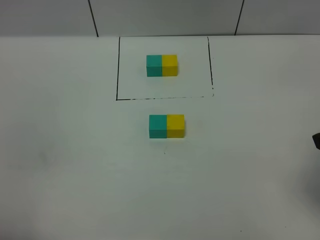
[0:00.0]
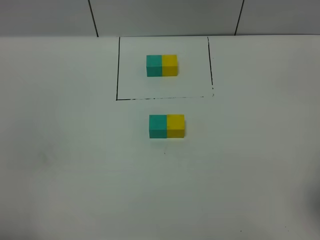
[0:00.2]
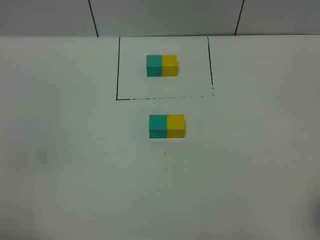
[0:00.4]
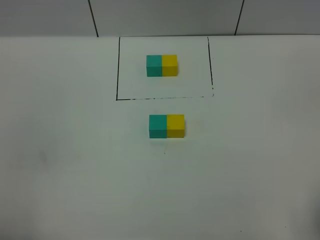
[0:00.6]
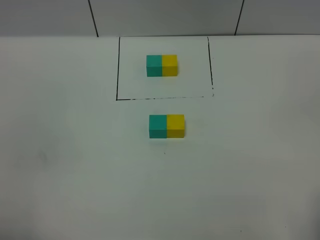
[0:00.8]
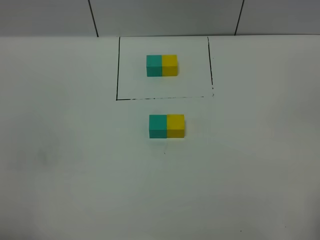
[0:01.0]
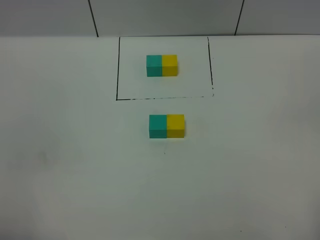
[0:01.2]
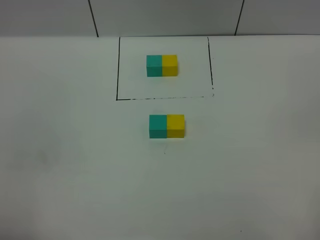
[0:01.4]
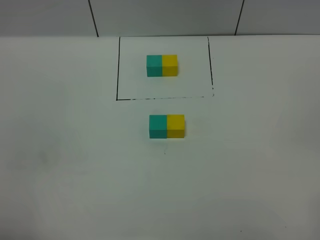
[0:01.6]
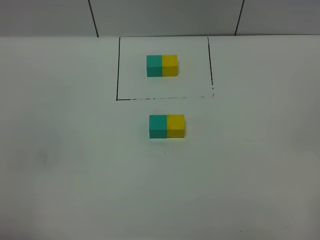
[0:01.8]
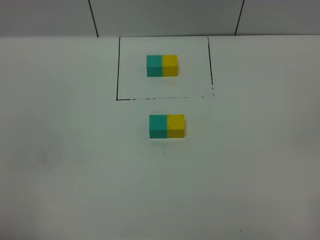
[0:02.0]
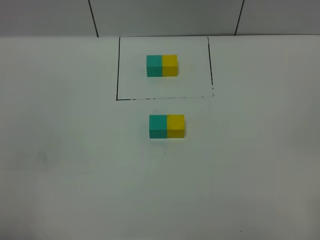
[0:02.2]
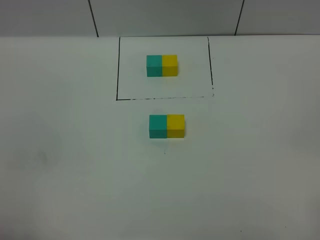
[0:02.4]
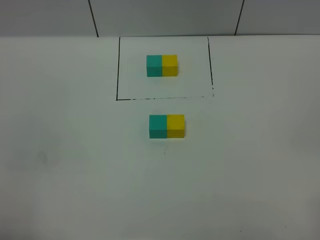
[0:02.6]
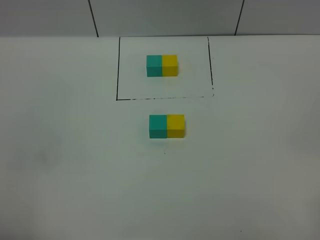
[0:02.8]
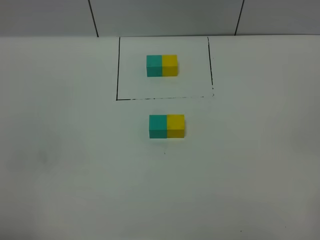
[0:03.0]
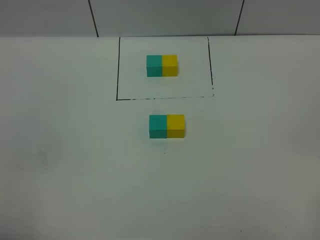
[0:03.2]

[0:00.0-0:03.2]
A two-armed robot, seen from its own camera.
Task of the whole recording: According to the building block template in front, assemble the scattered blocks together.
0:00.0 to 0:01.6: The right gripper travels backward by some 15 cm.
0:01.6 to 0:03.2: Both grippers stay put.

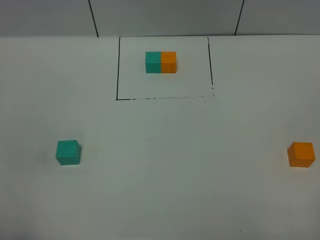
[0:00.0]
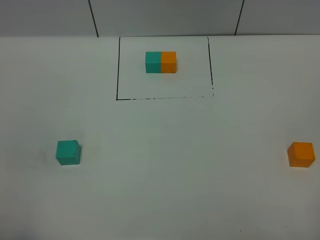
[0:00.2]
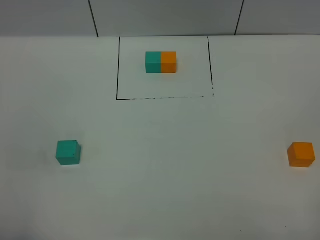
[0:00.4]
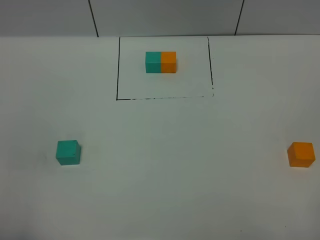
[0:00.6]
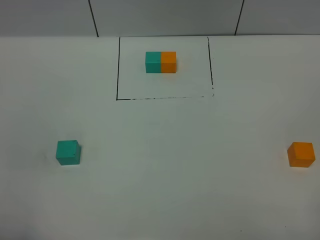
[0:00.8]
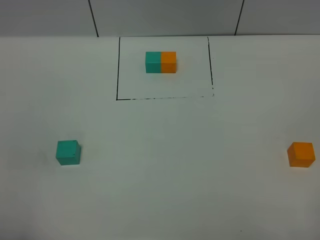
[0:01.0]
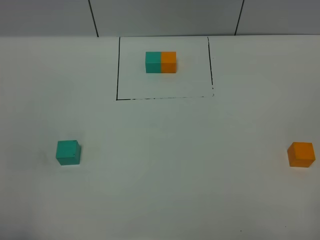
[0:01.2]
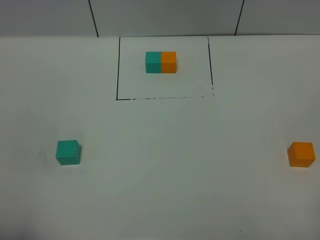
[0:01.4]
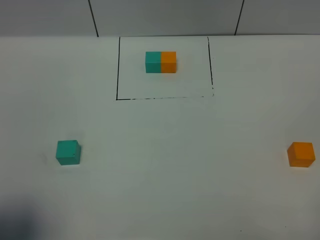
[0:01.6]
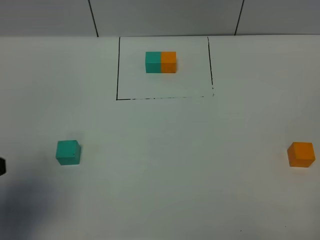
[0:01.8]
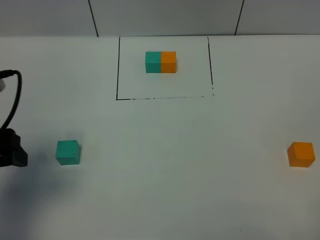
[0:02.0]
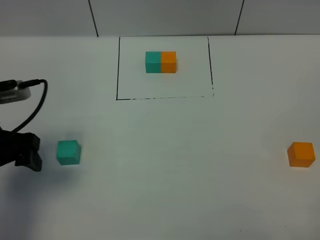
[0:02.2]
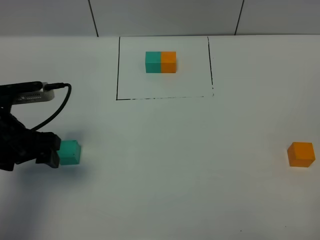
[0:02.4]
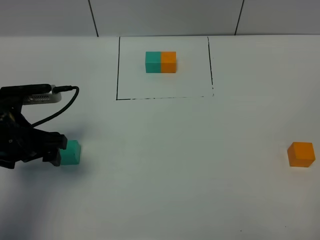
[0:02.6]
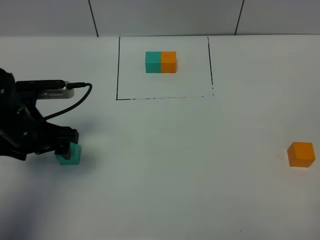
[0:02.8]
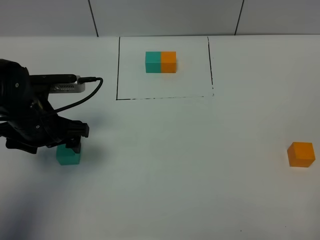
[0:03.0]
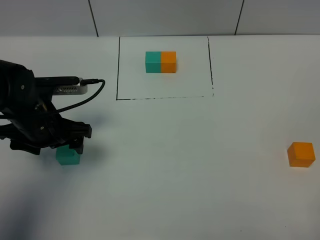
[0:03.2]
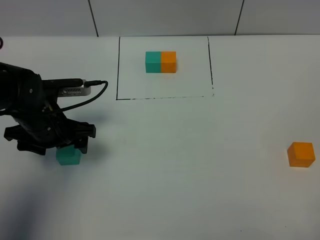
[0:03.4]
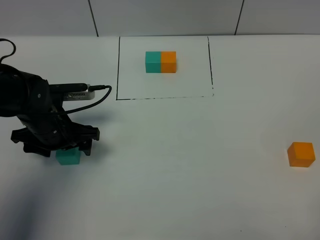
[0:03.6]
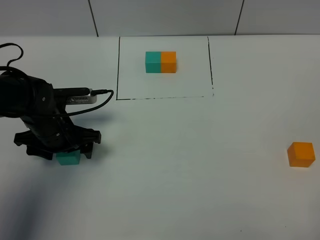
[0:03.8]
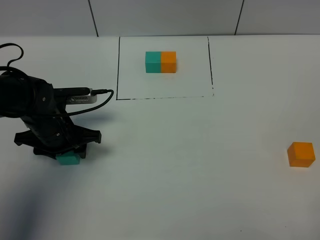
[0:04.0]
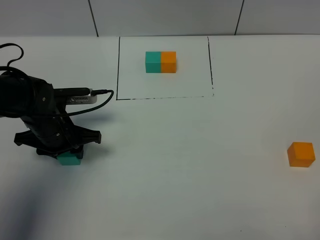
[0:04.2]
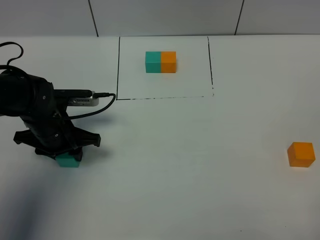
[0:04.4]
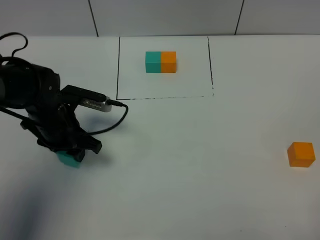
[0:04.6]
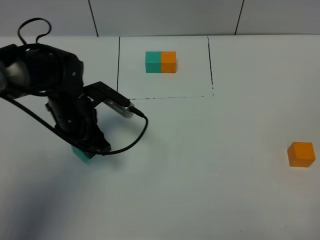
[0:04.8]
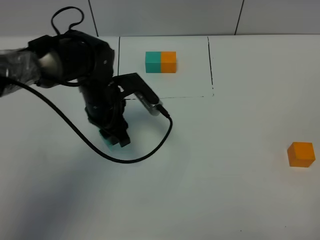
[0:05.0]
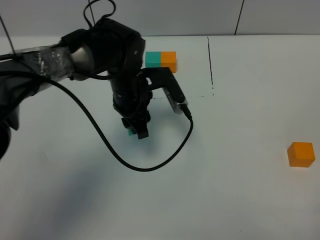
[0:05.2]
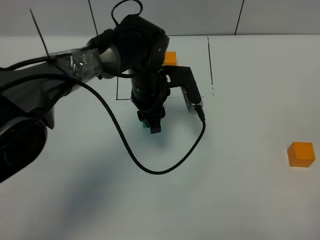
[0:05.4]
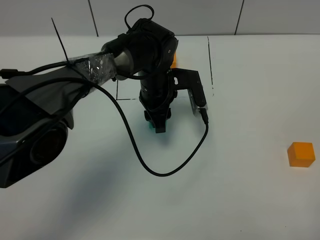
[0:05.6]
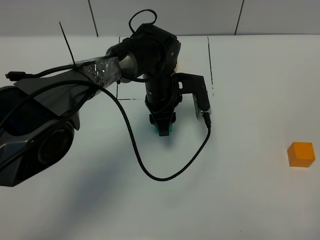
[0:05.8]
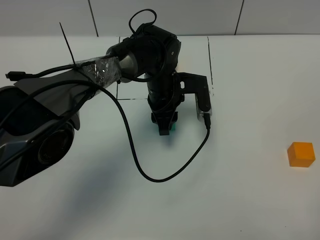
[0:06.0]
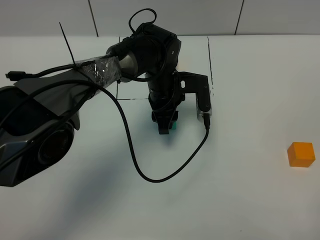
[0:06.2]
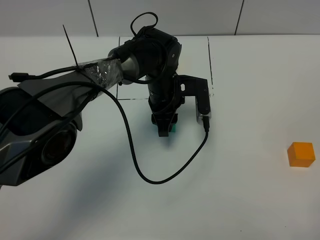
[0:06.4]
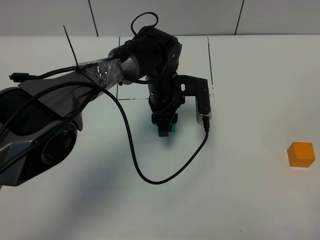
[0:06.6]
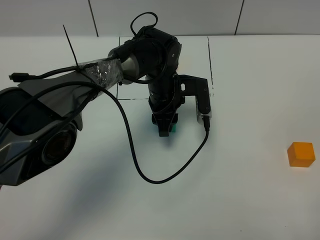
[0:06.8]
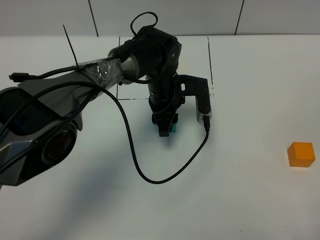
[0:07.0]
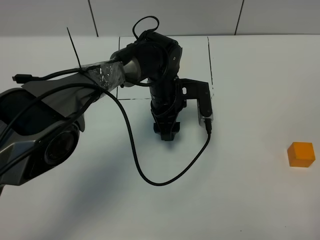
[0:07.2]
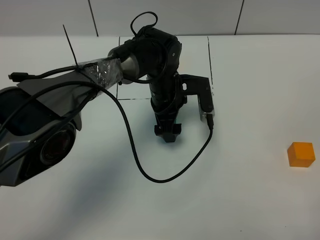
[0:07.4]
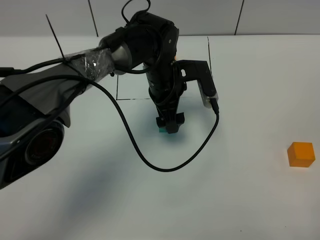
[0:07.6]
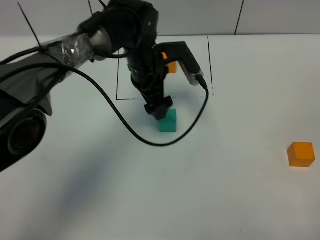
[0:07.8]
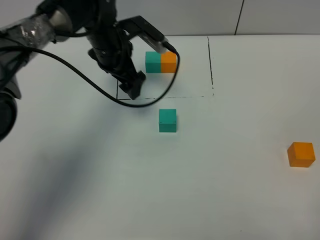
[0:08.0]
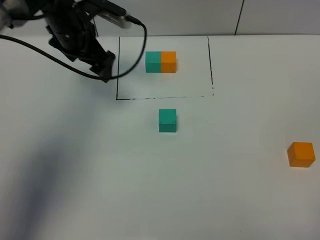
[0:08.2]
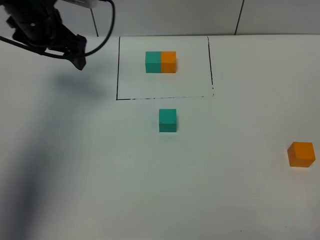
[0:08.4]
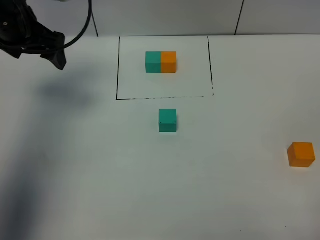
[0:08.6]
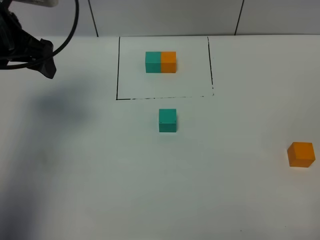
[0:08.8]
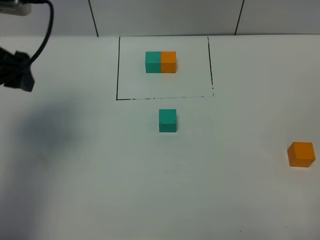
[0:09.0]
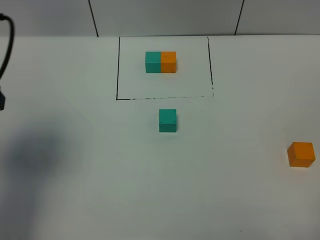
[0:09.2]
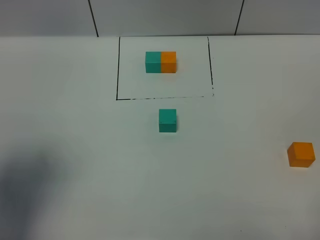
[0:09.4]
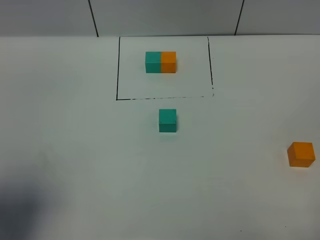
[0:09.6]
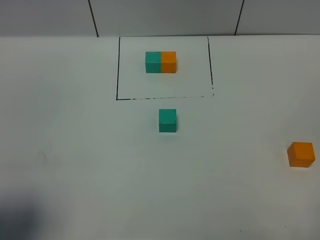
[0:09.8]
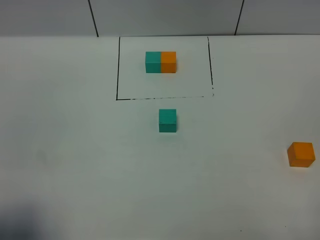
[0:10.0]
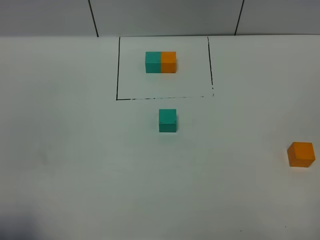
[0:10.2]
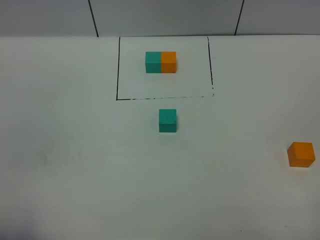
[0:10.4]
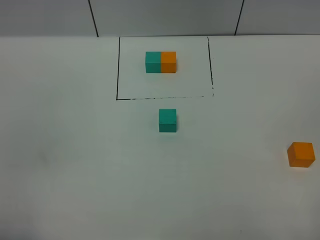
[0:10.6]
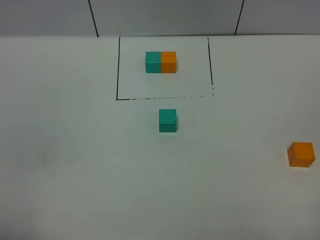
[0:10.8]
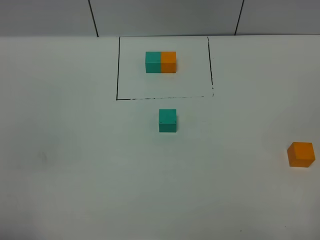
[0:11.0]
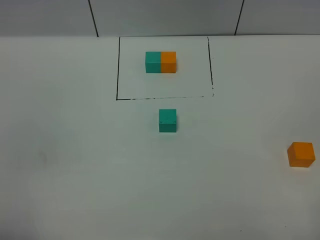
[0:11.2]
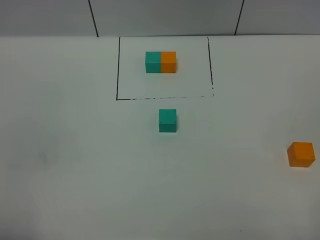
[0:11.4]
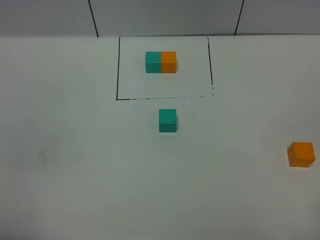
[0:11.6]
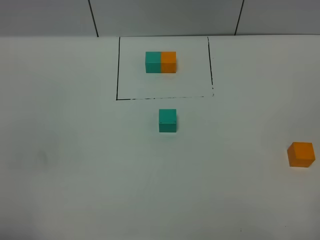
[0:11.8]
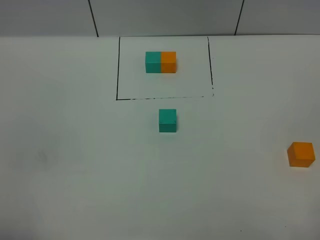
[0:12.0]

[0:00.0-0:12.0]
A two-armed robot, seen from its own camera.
Task of the whole recording: According to the building block template in front, assemble the scattered blocks together.
Step, 0:01.8 to 0:07.4: Put the green cube in the center of the table.
0:00.0 to 0:01.6: The left gripper heads forward, covering approximately 5 cm.
0:01.6 to 0:03.0: The left gripper heads forward and downward, covering roughly 25 cm.
0:03.0 to 0:04.4: The left gripper goes about 5 cm downward, and closes up.
0:04.4 to 0:06.0: The left gripper is displaced to the right and forward by approximately 25 cm.
0:06.0 to 0:07.6: The left gripper opens its fingers.
0:07.6 to 0:09.0: The left gripper travels to the left, upward and backward by about 35 cm.
0:09.0 to 0:10.4: The left gripper shifts some 30 cm backward.
0:10.4 to 0:12.0: Both grippers stay about where they are.

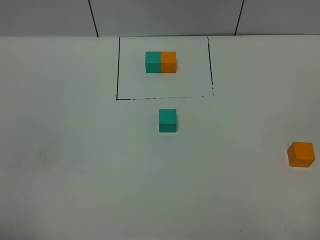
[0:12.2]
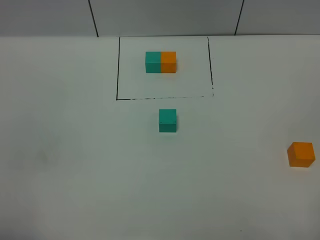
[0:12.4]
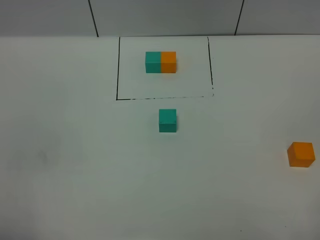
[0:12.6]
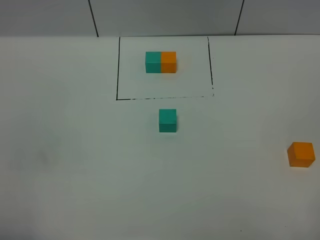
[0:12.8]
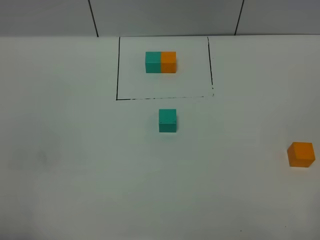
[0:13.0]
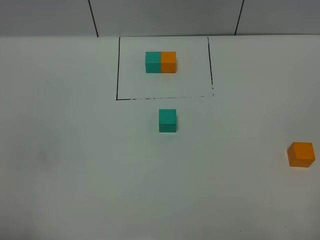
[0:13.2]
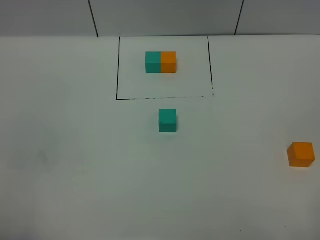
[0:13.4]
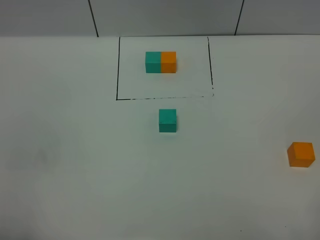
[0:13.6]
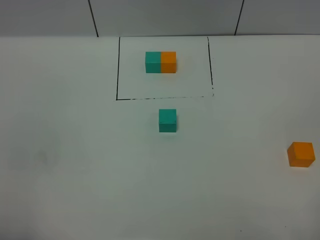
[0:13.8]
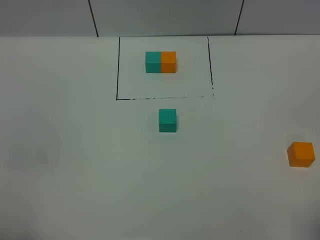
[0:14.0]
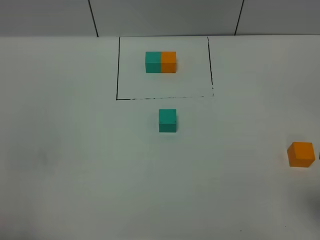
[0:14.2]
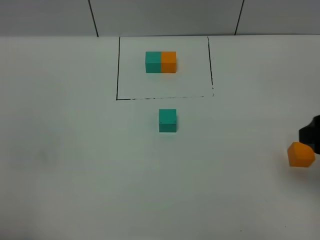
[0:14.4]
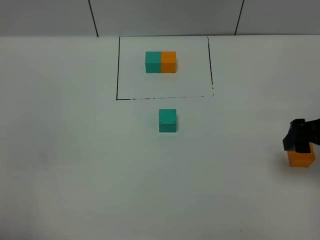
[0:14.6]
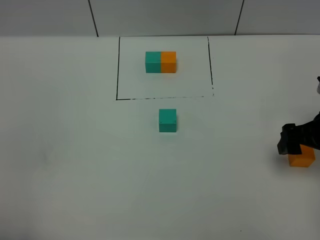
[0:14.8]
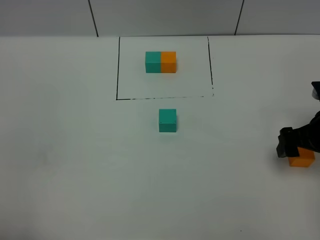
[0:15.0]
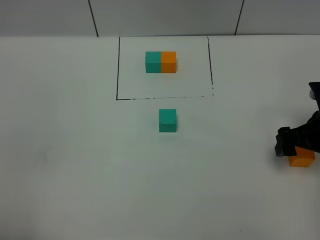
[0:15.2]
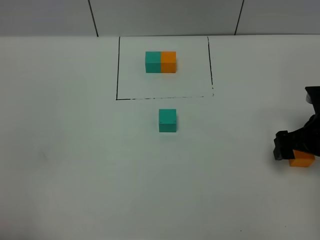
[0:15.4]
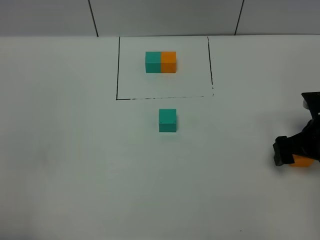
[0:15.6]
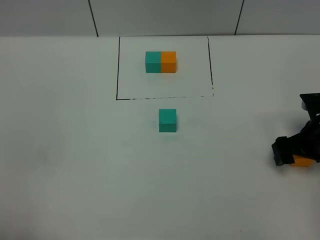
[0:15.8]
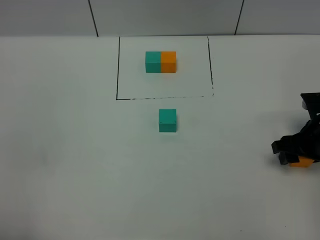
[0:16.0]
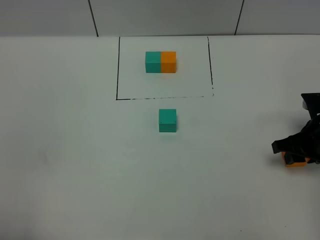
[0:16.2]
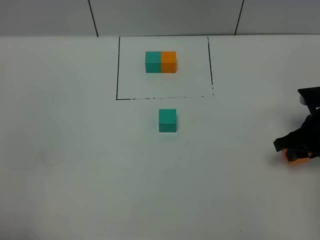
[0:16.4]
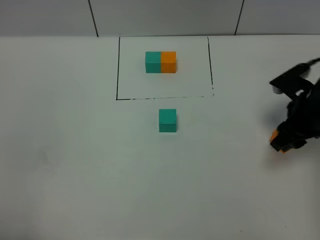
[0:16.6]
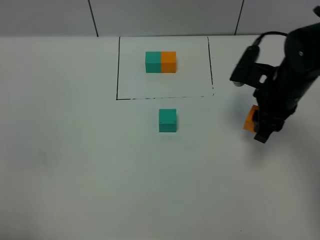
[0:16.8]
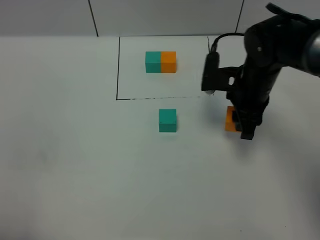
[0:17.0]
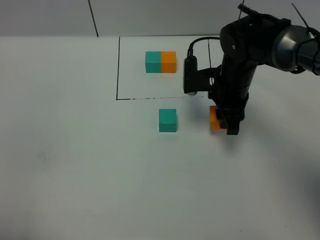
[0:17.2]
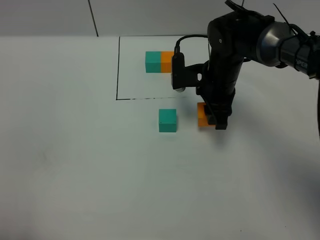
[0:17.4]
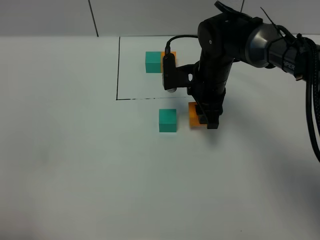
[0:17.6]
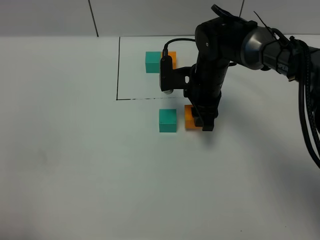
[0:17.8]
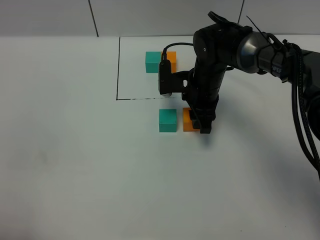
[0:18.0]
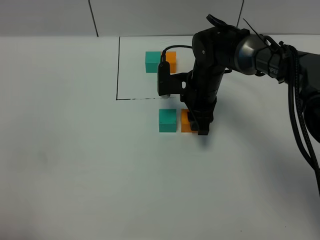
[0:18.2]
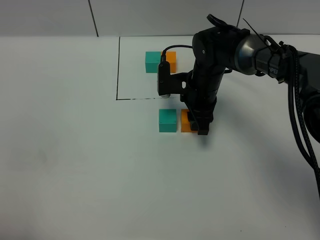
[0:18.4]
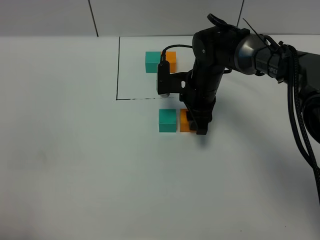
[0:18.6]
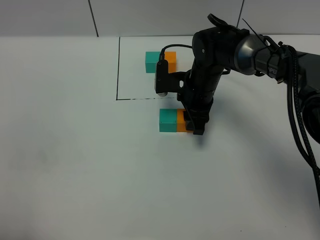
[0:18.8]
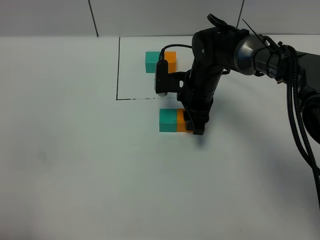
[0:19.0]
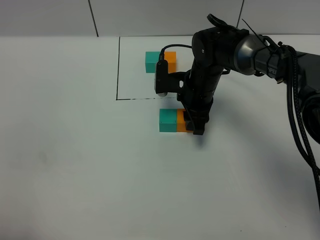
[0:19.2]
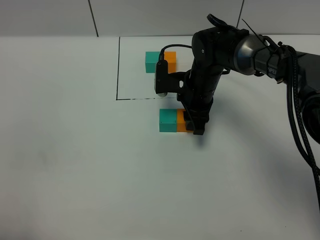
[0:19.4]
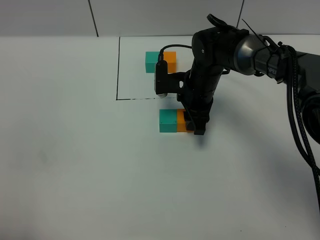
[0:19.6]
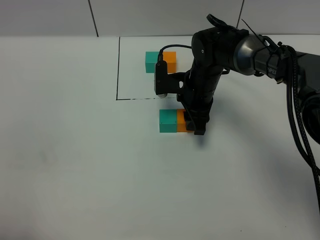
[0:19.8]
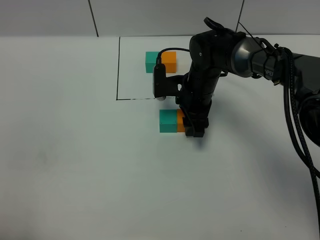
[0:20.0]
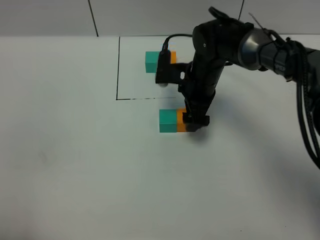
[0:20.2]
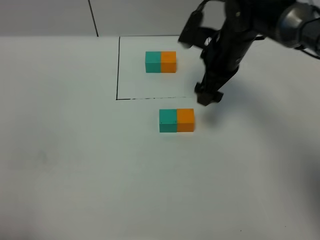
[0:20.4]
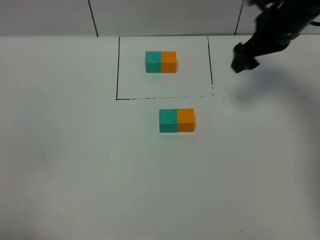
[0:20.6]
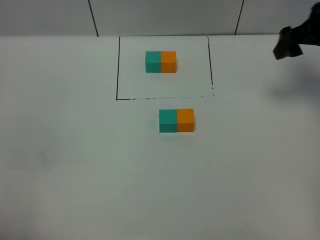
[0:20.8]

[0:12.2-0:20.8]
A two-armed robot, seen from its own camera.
Task of the whole recording: According to the building block template in front, assemble the scattered blocks together.
Step, 0:12.2 to 0:20.2: Put the orange cube on the right of the green cube.
0:12.2 to 0:13.6: The two grippers keep their place.
0:13.6 to 0:15.0: The right gripper heads forward and downward, covering about 30 cm.
0:15.0 to 0:16.6: The right gripper changes place by about 5 cm, and closes up.
0:16.6 to 0:18.0: The right gripper heads to the left and forward, covering approximately 20 cm.
0:18.0 to 0:19.4: Both grippers stay put.
0:19.4 to 0:20.8: The right gripper goes roughly 30 cm to the right and upward, and opens its fingers.
